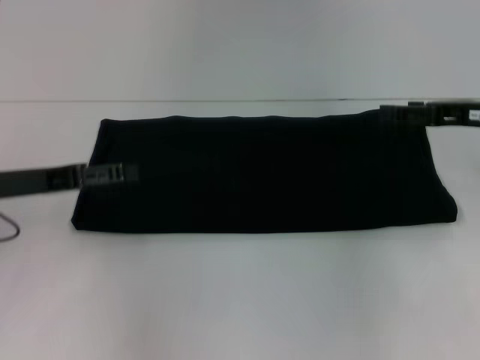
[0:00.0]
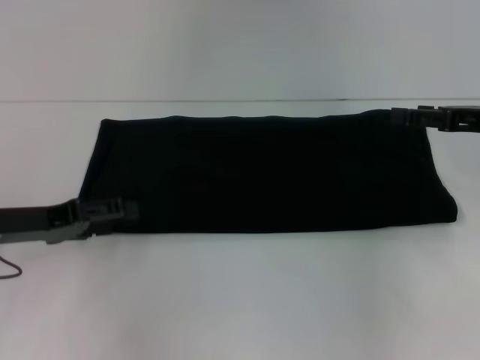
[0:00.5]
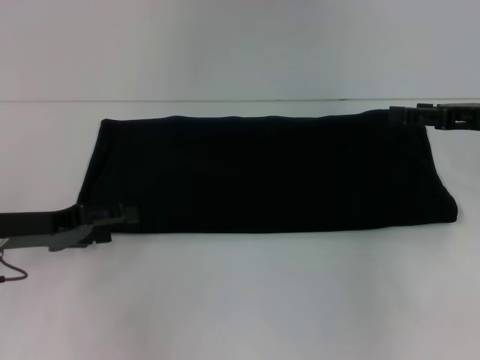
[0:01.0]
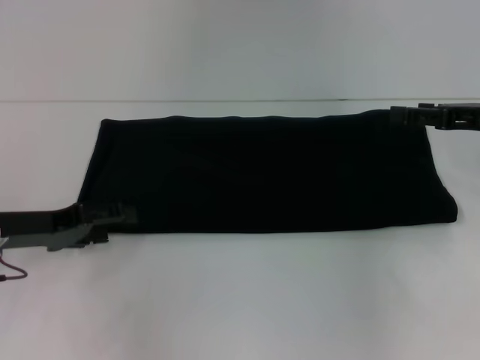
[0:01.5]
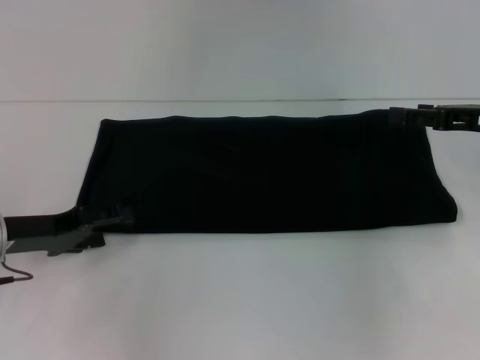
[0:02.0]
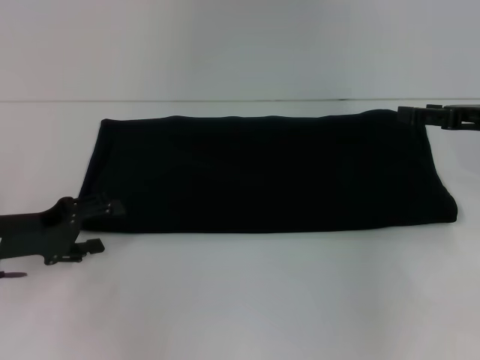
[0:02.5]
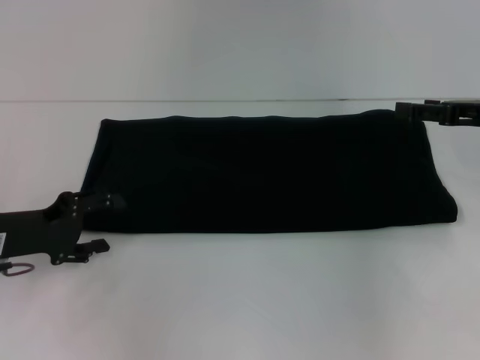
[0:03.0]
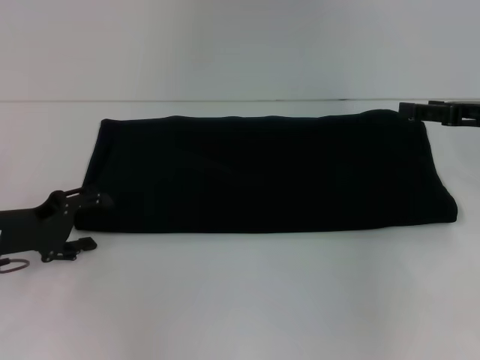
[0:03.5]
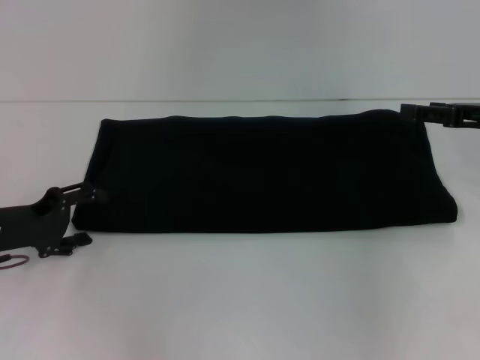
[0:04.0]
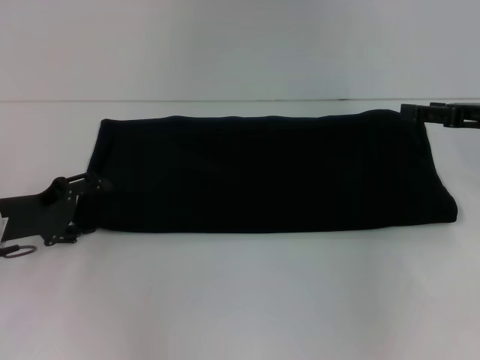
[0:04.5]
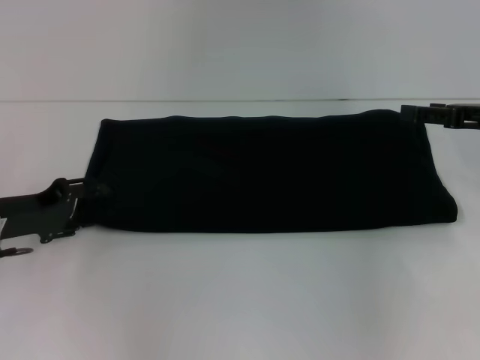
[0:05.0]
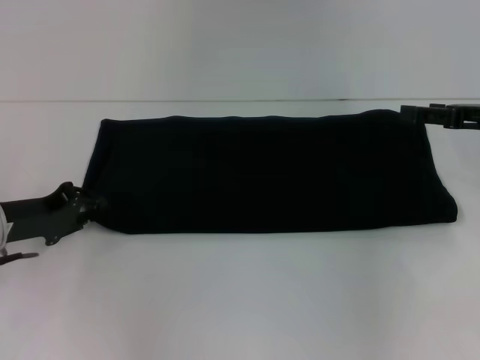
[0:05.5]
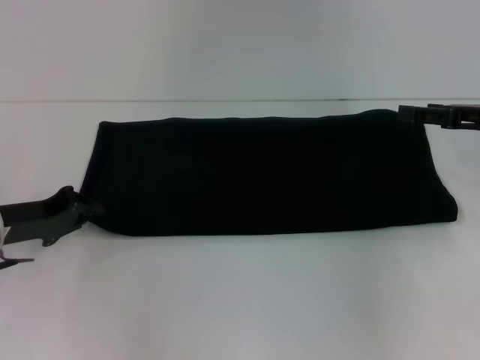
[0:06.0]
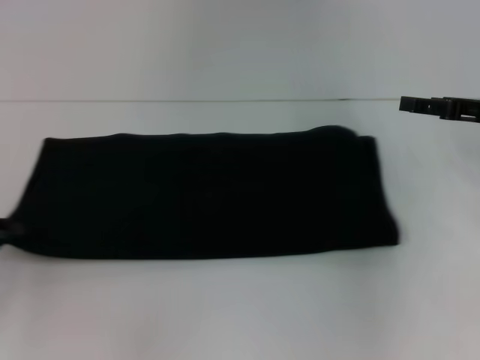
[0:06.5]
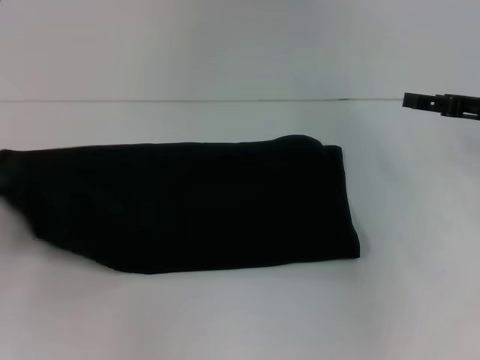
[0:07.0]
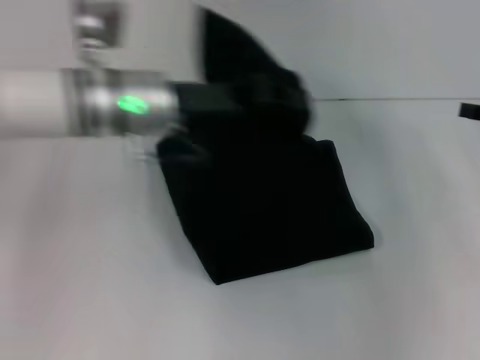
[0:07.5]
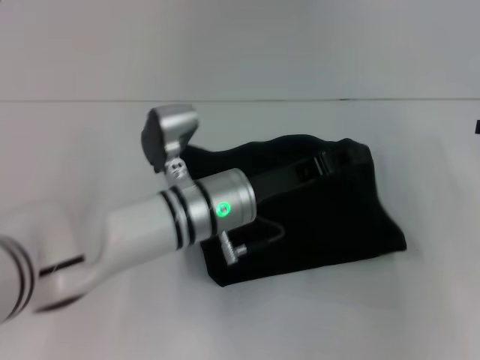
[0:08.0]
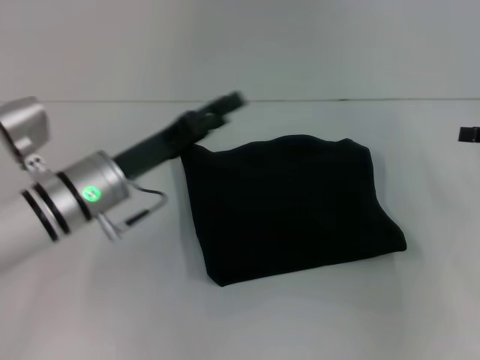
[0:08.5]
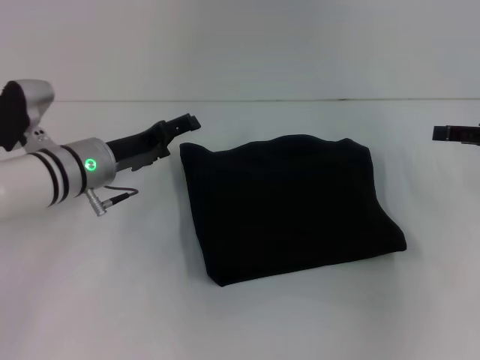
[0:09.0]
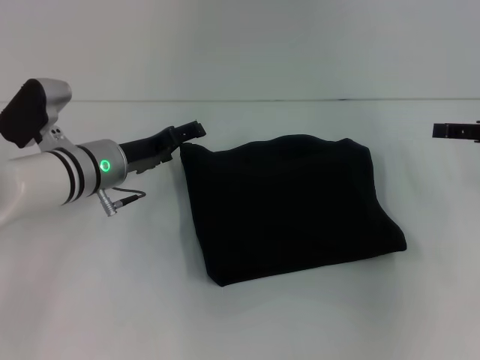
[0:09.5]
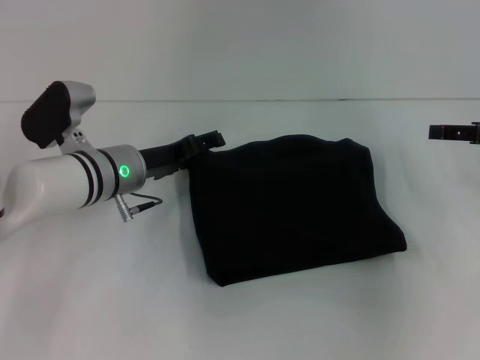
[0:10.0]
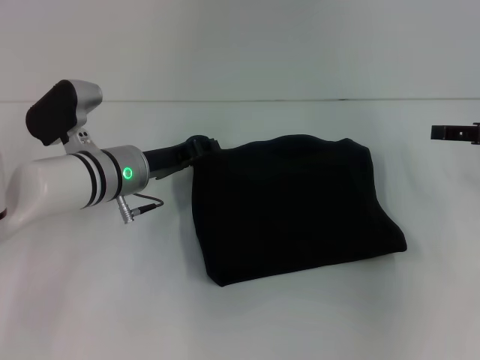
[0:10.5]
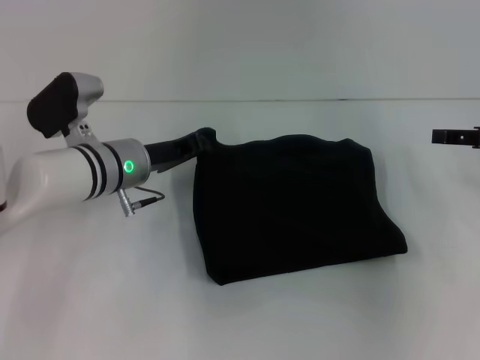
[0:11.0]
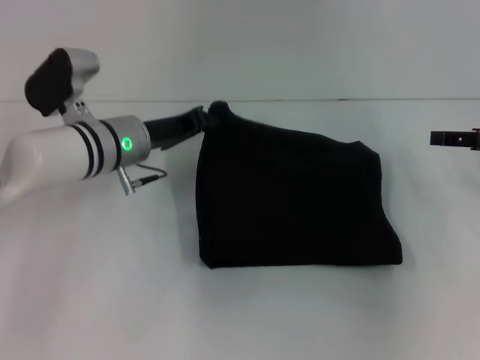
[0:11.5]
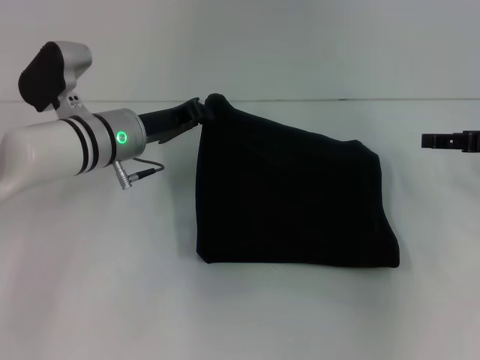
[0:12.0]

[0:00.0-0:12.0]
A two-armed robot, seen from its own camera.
Step, 0:00.0 to 0:08.0: Fold the clothes with your left hand.
0:00.0 to 0:02.0: The left gripper moves downward, about 5 cm.
0:04.0 to 0:06.0: The left gripper closes its fingers.
0:06.0 to 0:08.0: The right gripper travels to the right by some 5 cm. The left gripper moves to the right, some 25 cm.
0:08.0 to 0:10.0: The left gripper is displaced to the left and forward by about 10 cm, and opens.
0:10.0 to 0:12.0: The left gripper closes.

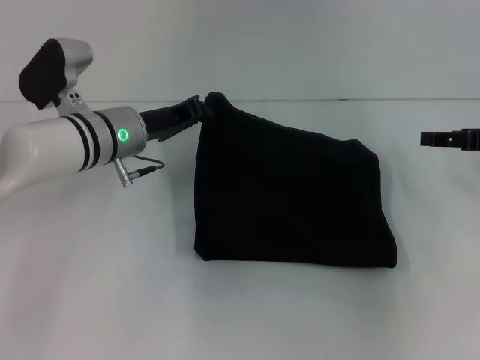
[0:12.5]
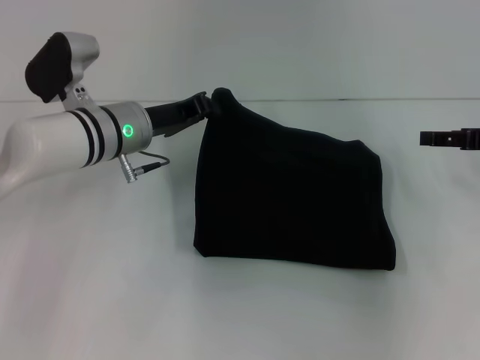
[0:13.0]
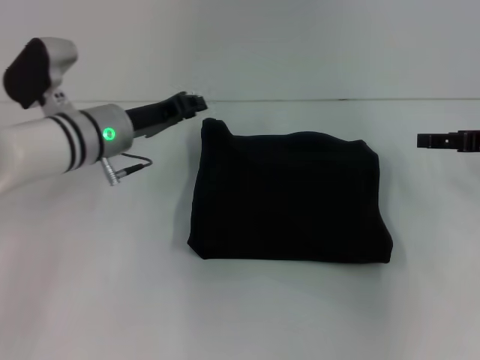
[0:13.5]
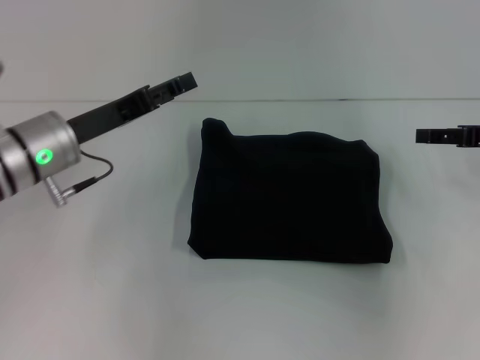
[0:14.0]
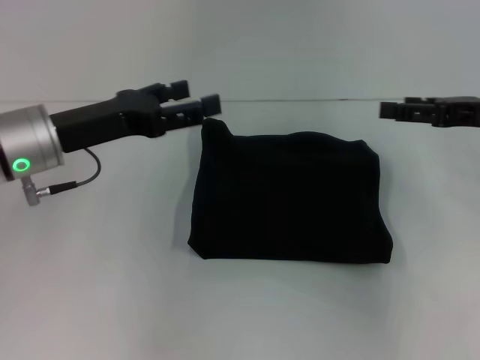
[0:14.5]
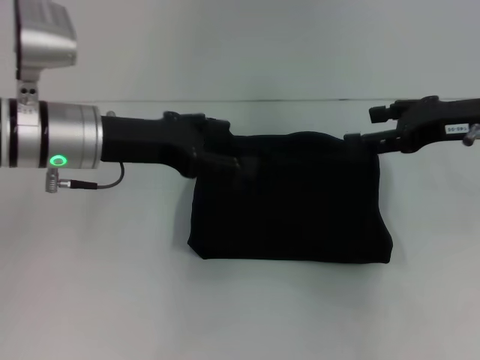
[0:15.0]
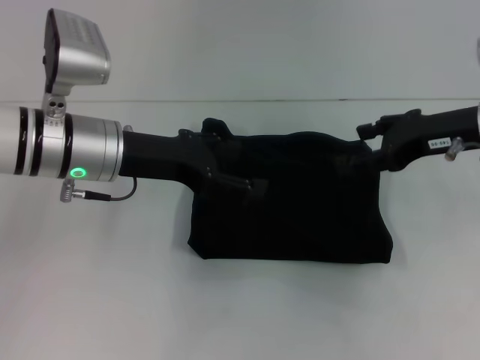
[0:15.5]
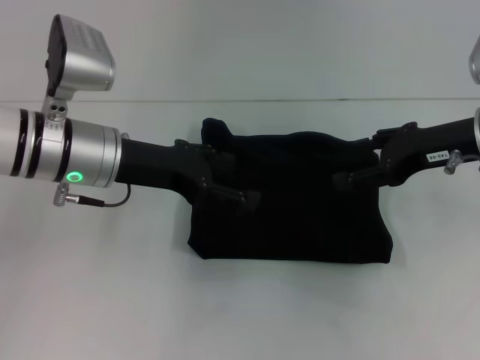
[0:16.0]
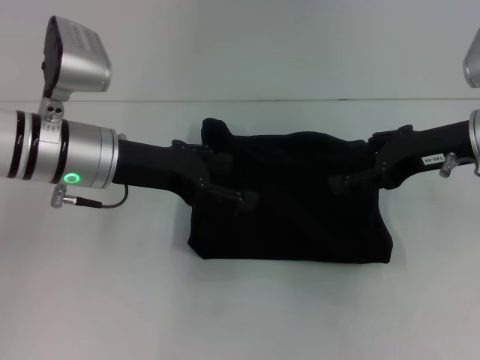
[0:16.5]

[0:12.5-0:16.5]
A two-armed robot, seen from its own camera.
0:12.5 to 0:14.5: The left gripper travels backward, to the left and upward by roughly 10 cm, and opens up.
0:14.5 to 0:16.5: The right gripper shifts some 5 cm to the left.

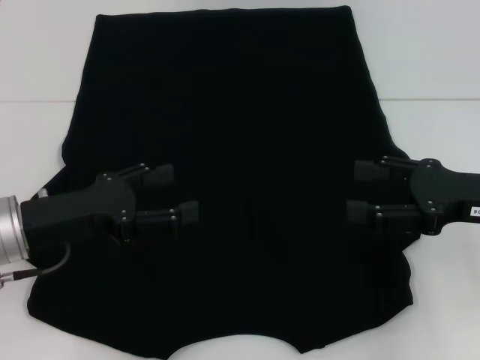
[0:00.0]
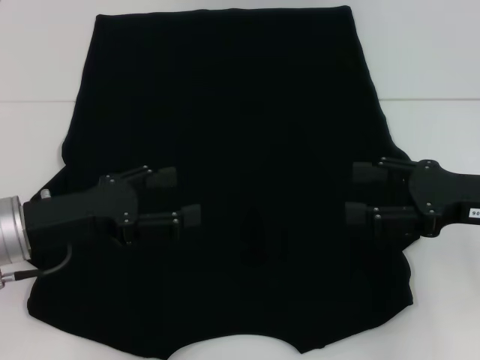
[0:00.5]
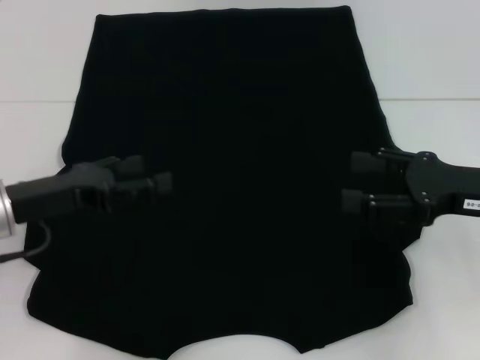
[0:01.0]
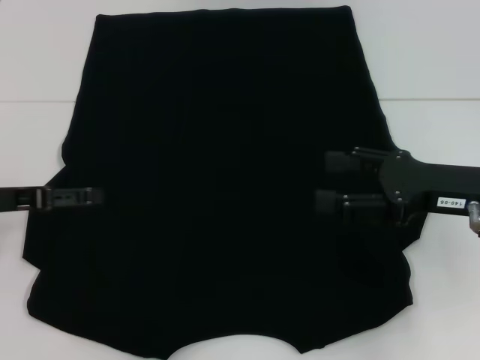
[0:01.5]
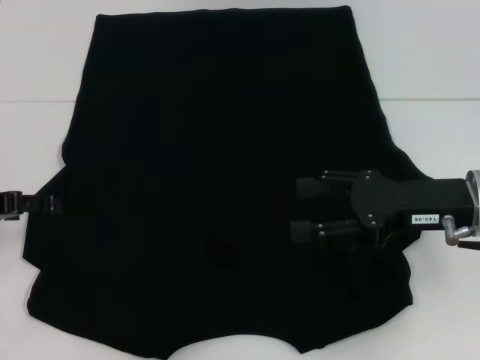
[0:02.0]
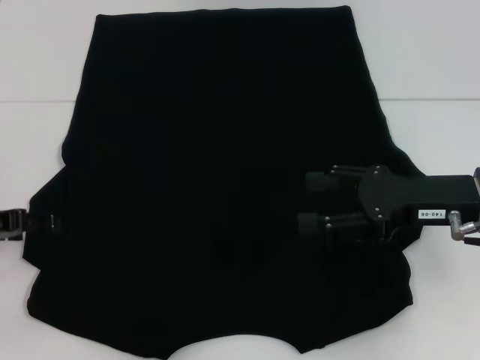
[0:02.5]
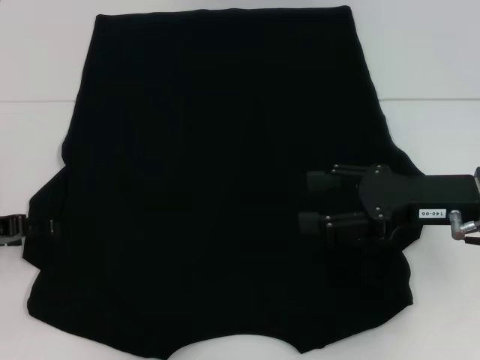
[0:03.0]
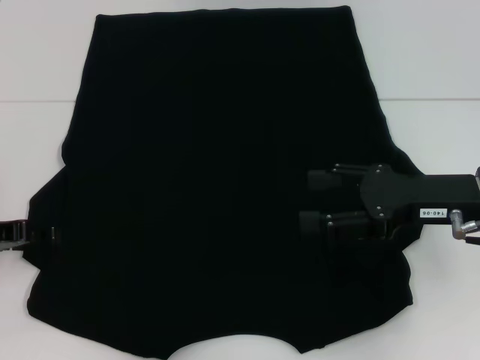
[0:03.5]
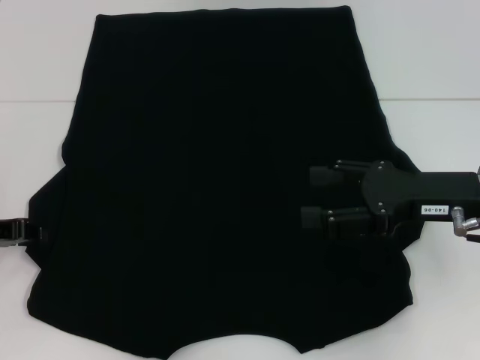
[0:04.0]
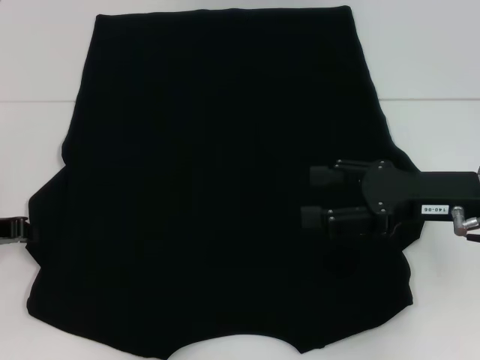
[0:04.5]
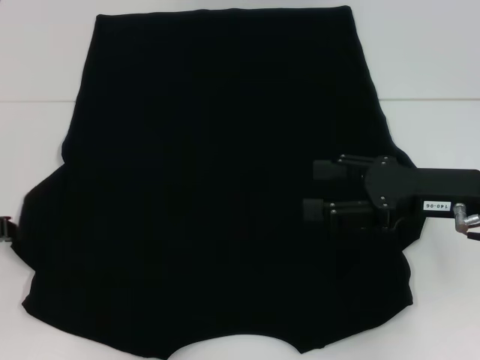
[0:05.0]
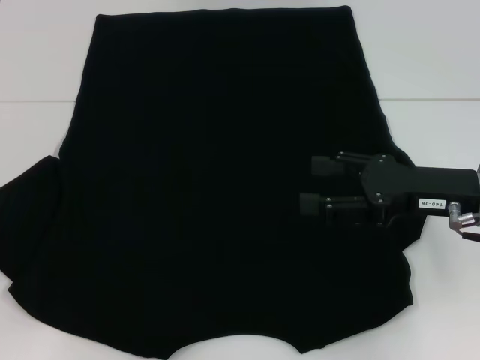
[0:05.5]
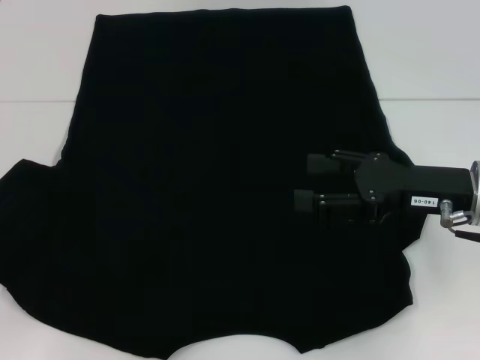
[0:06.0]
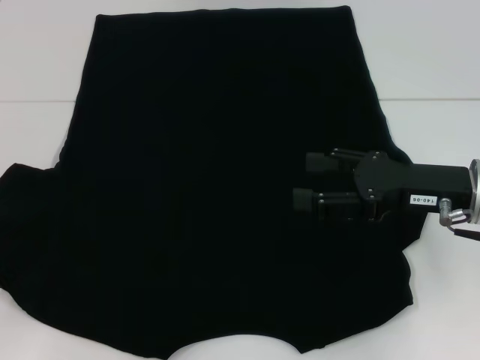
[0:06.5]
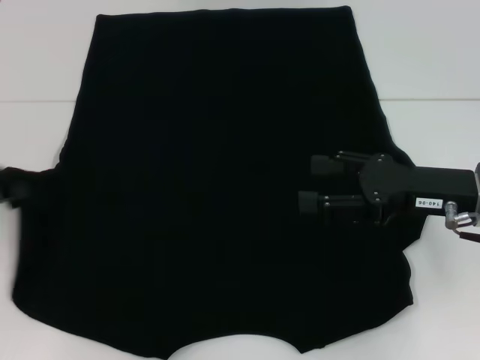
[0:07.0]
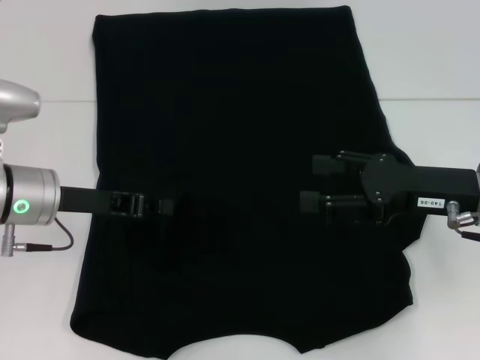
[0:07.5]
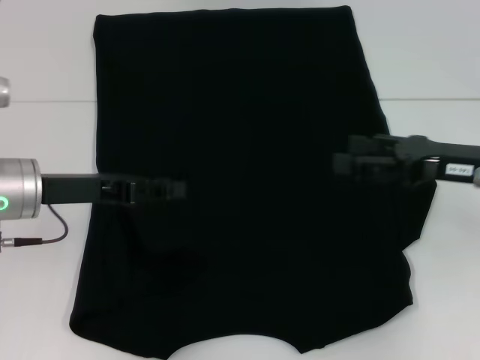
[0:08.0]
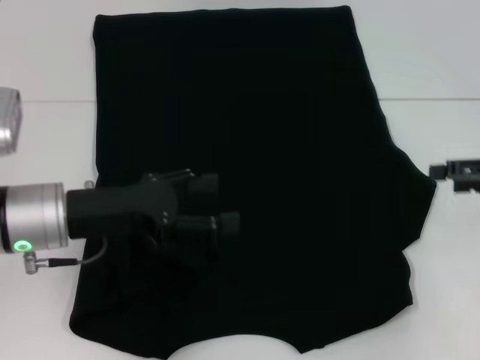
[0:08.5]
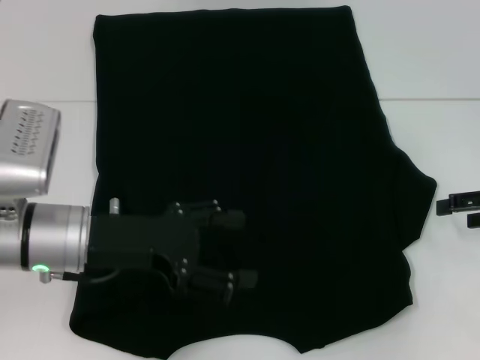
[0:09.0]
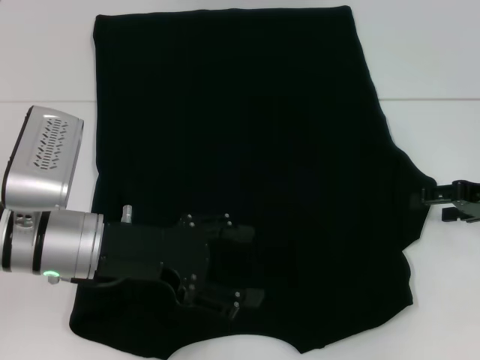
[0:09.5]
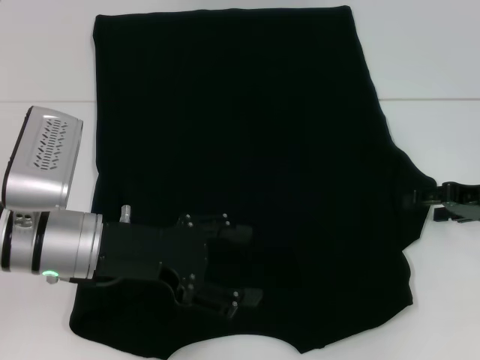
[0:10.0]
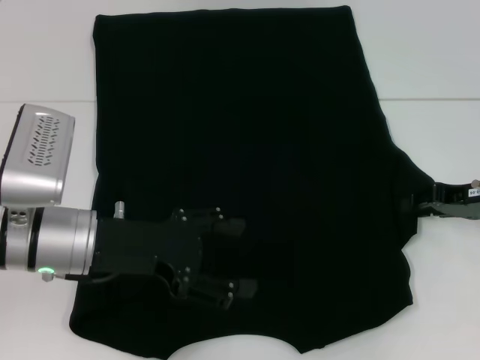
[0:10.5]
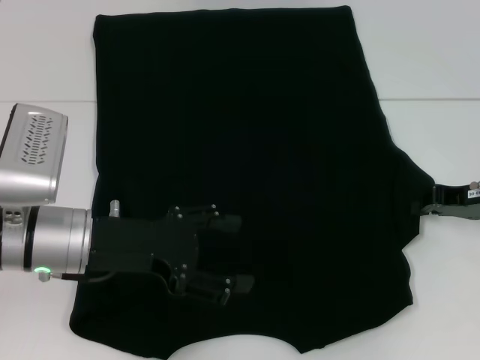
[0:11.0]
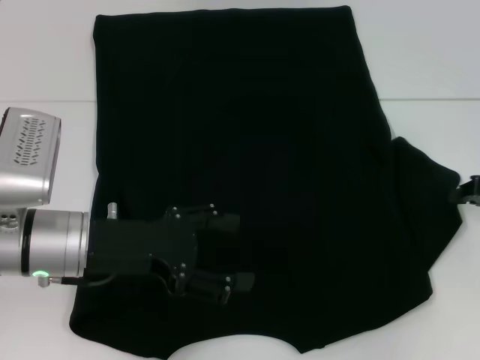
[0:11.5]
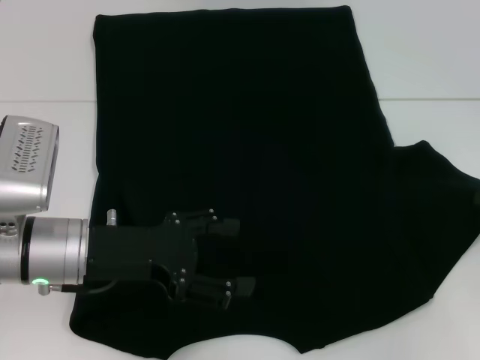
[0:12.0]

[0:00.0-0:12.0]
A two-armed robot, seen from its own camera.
Step, 0:00.0 to 0:07.5: Fold the bottom left sleeve with your left hand.
0:00.0 to 0:02.0: The right gripper ends up roughly 5 cm from where it was. The left gripper heads to the left, covering some 10 cm.
0:02.0 to 0:04.0: The left gripper closes.
0:04.0 to 0:06.0: The left gripper heads to the left, covering approximately 5 cm, and closes up.
0:06.0 to 0:08.0: The right gripper ends up approximately 5 cm from where it was. Meanwhile the left gripper heads to the right, covering approximately 15 cm.
0:08.0 to 0:10.0: The right gripper shifts by approximately 5 cm. Meanwhile the left gripper goes about 5 cm to the right, and opens.
0:10.0 to 0:12.0: The right gripper goes approximately 5 cm to the right, and closes its fingers.
